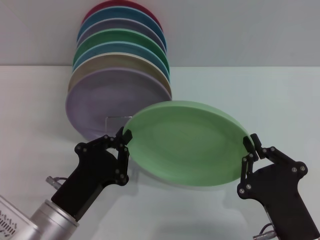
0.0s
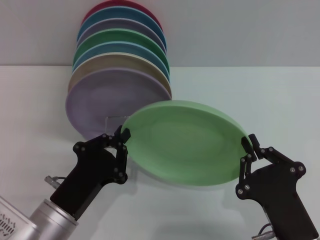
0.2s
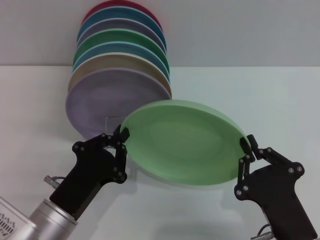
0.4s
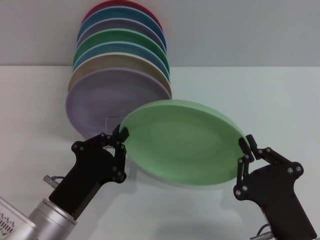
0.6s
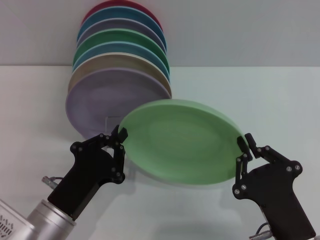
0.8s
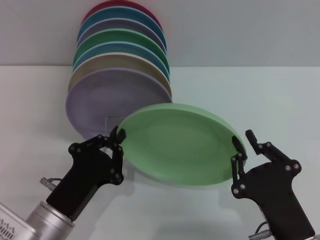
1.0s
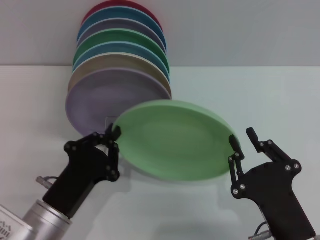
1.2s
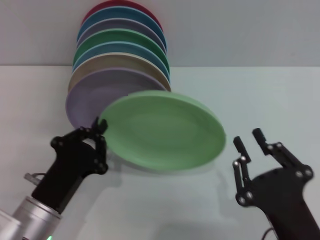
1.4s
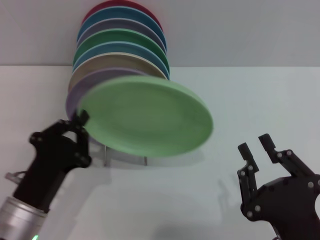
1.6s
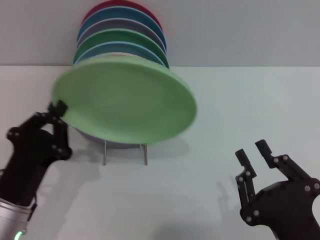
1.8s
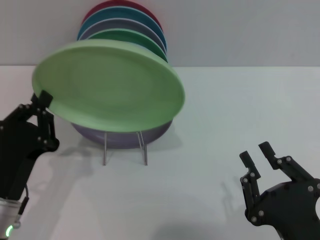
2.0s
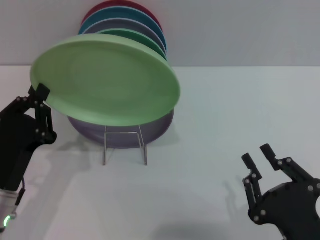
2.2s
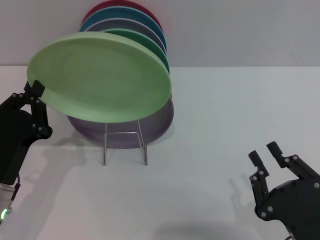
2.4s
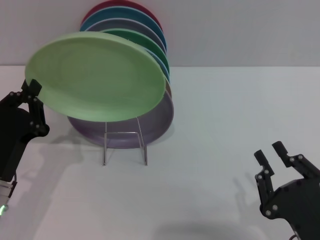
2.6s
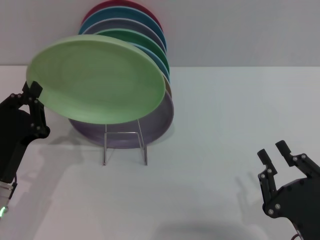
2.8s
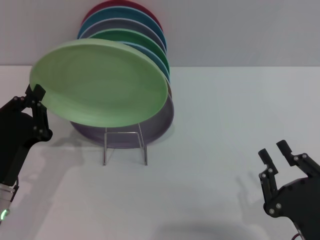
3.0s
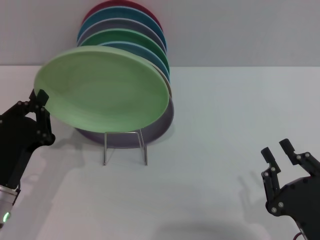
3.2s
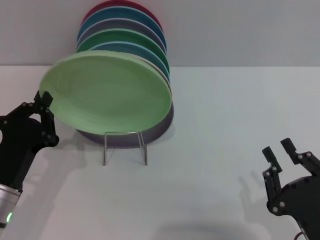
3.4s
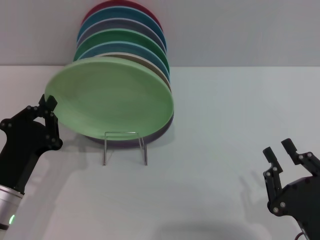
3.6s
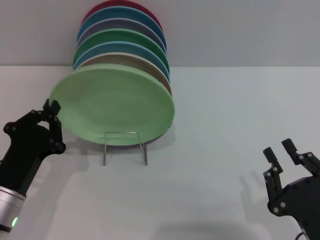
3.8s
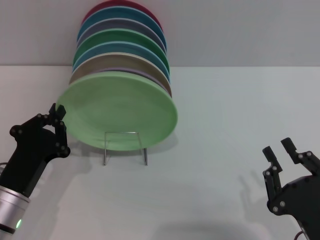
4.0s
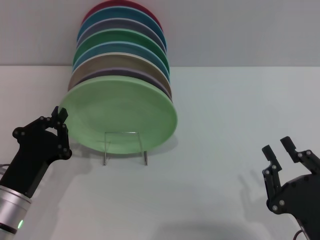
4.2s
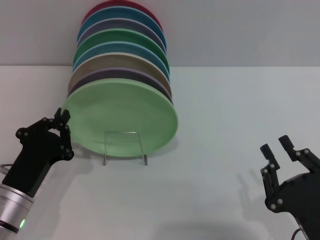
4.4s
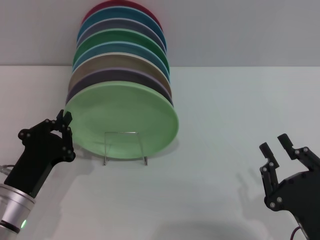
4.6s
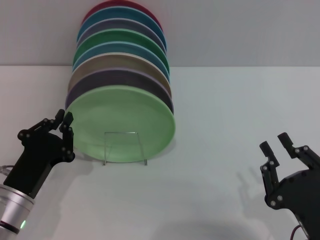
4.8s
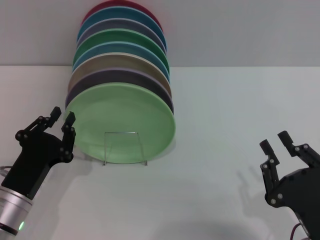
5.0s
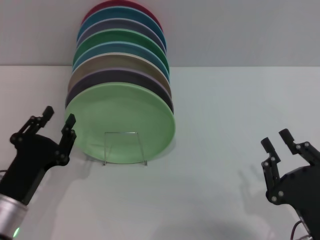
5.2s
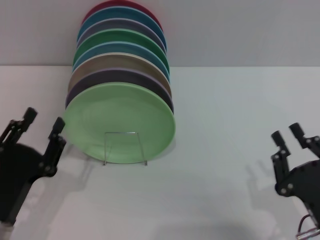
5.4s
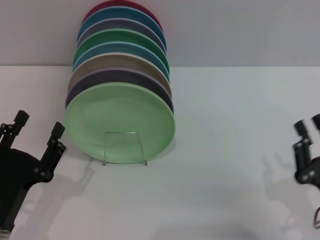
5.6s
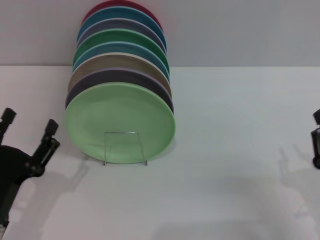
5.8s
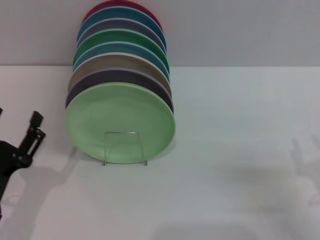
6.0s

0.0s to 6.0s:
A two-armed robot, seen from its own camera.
Task of the whole recording: Grip the plate with one hand, pass it to the other, then set it on the shelf.
Step, 1.8s to 5.4s: Place the plate on the shelf with the left gripper.
0.0s to 1.6s: The right gripper opens.
1.6s to 3.0s: The right gripper shifts by approximately 5 cm.
3.0s to 4.4s: The grippers stay close to where they were, moving slightly.
4.4s to 6.0s: The left gripper opens. Meanwhile the right gripper travels to the right and forward by some 10 cm.

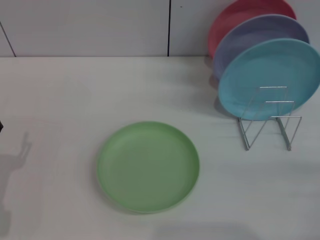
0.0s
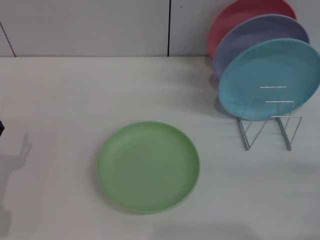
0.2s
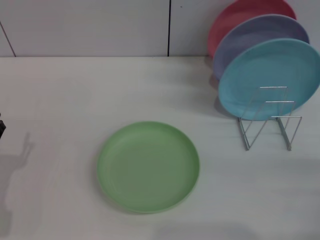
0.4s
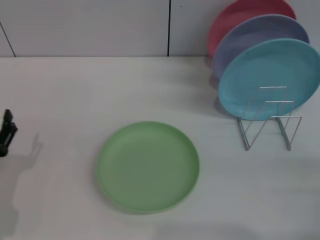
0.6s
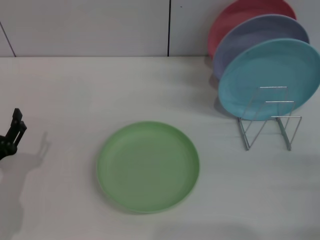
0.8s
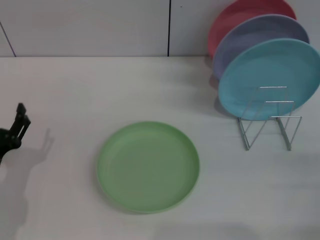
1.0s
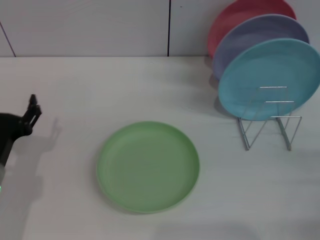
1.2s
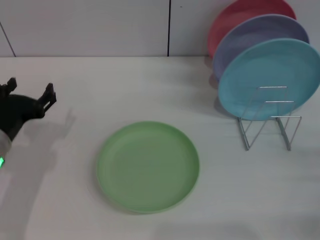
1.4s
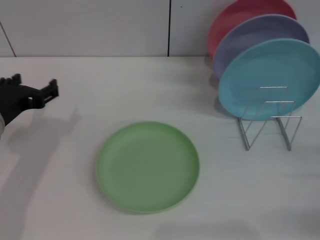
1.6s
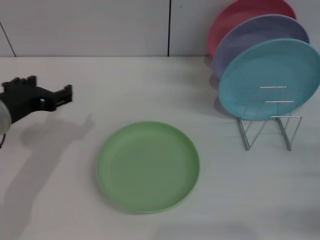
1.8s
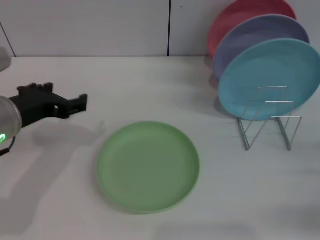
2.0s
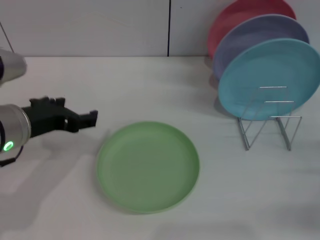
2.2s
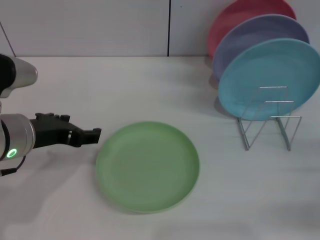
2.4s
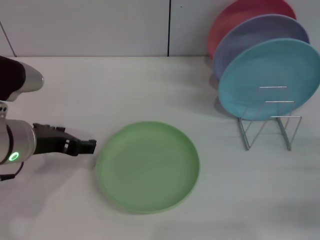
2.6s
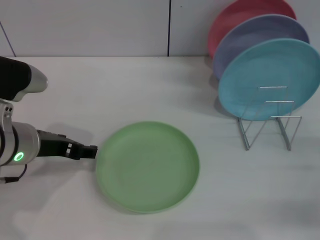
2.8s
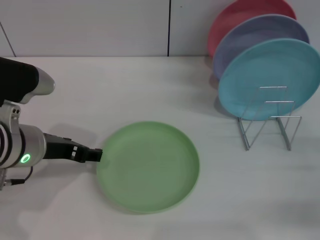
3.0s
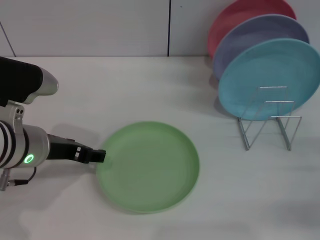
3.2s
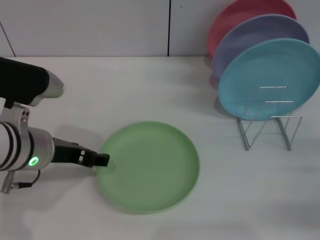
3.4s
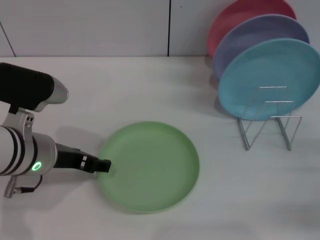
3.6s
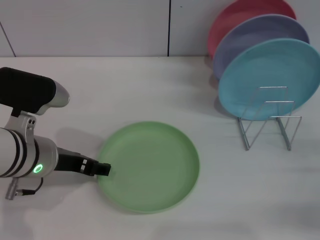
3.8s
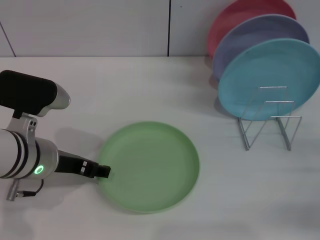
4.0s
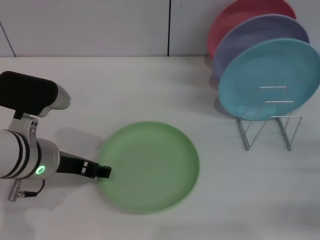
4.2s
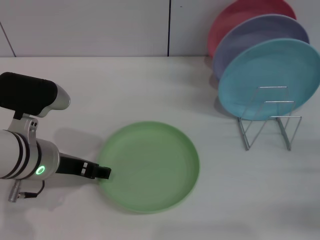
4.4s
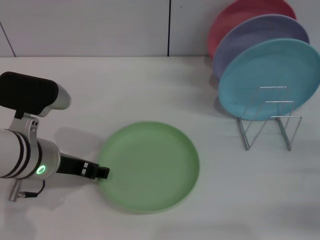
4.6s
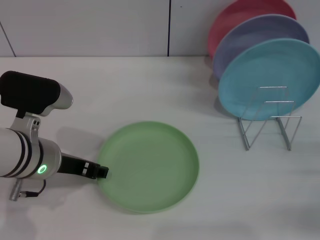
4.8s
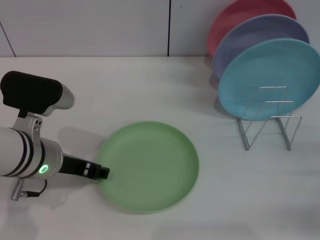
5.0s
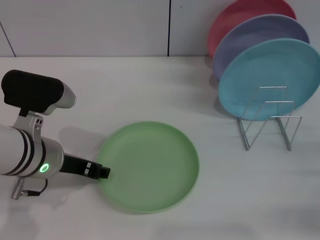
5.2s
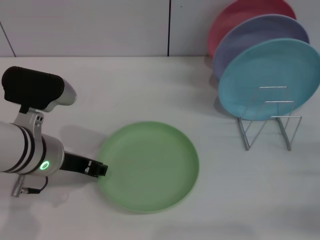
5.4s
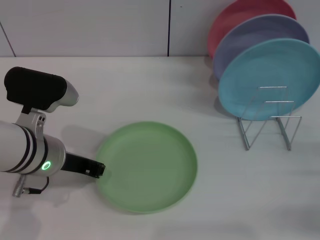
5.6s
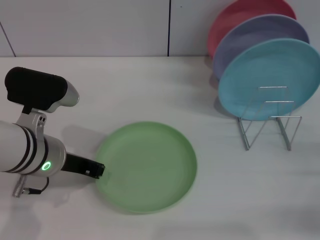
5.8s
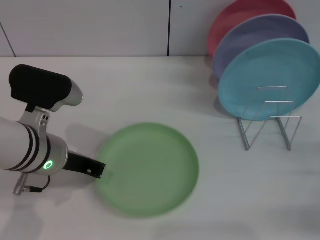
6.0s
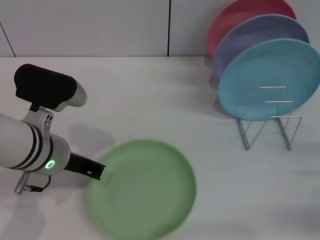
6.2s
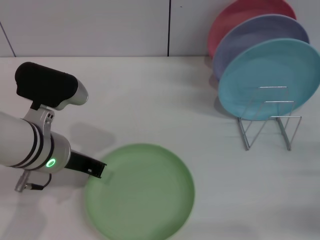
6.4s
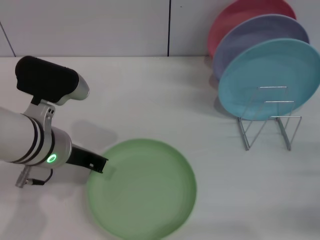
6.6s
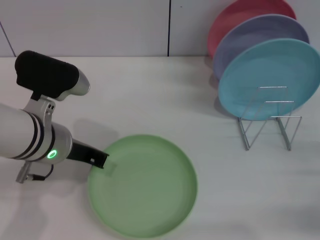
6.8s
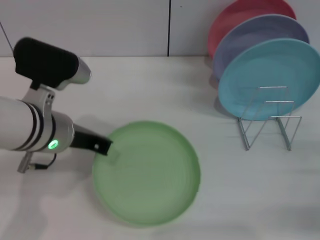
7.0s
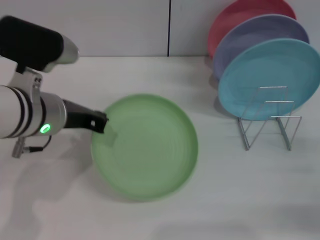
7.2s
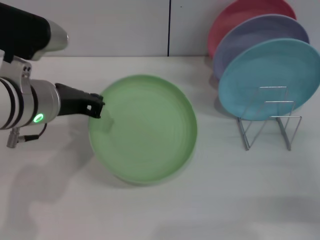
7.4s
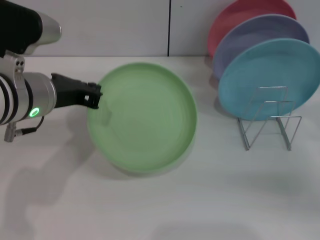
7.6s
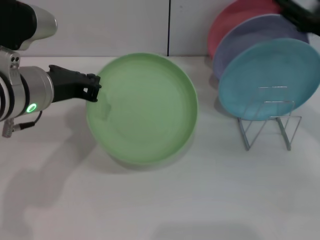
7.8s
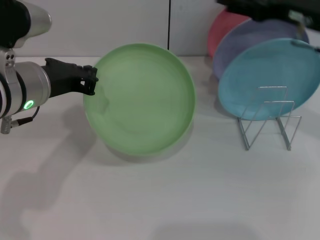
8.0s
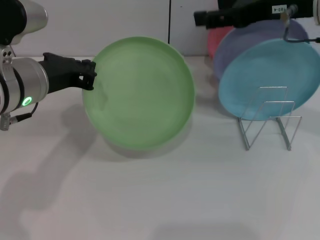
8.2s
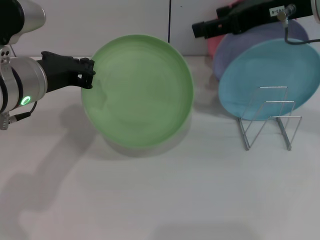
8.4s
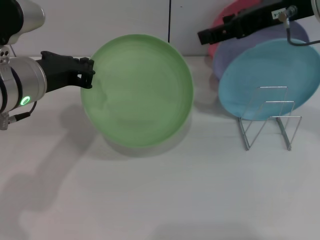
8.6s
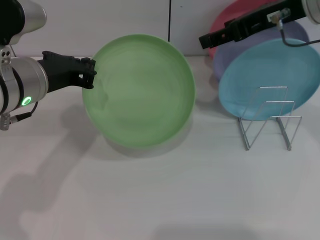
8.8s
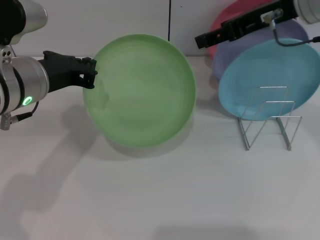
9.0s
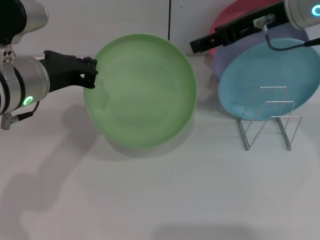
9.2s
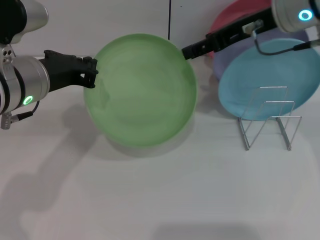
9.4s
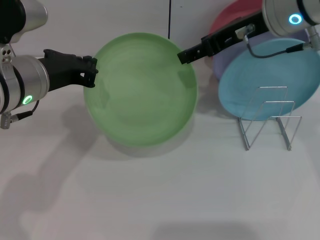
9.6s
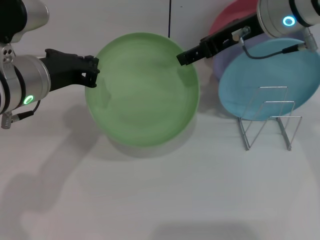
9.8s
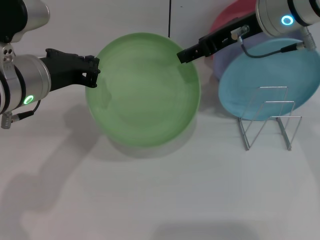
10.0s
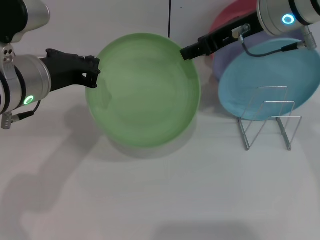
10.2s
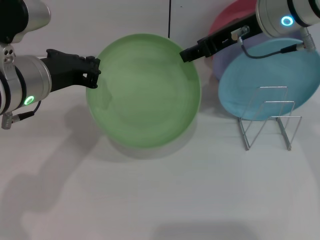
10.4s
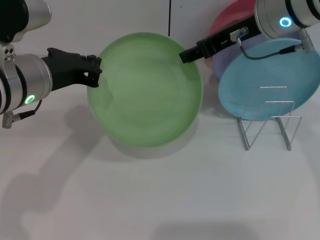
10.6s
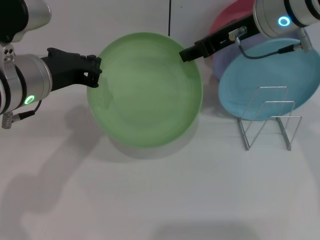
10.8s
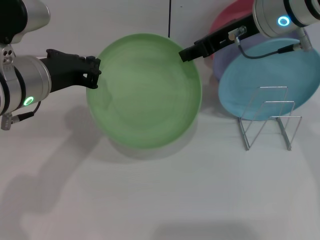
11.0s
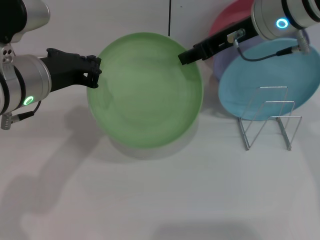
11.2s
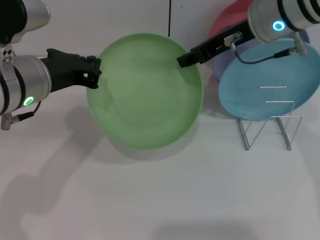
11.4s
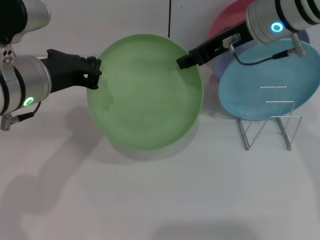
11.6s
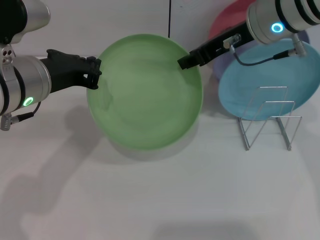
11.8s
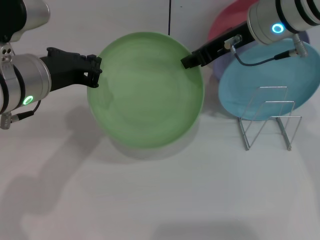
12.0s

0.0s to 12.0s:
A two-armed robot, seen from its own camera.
Task of the whole recording: Grip the plate with one hand, pass it to the other, then set it on the shelf.
Step, 0.0s to 8.2s: Pick up the plate with the left gripper.
0.0s to 1.6s: The left gripper travels upward and forward by approximately 15 cm.
1.6s to 3.0s: The left gripper heads to the right, covering about 5 cm.
3.0s to 4.4s: The grippers make only small movements.
4.4s to 6.0s: The left gripper closes up.
6.0s to 7.6s: The left gripper shifts roughly 5 cm upward. The right gripper travels forward and upward by about 10 cm.
7.6s to 9.0s: The right gripper goes about 25 cm upward, to the left and forward.
9.0s to 10.4s: The grippers move only a little.
10.4s to 12.0s: Neither gripper changes place.

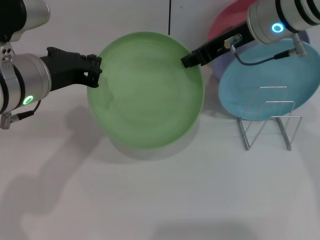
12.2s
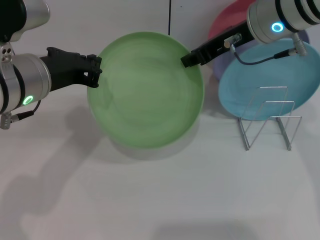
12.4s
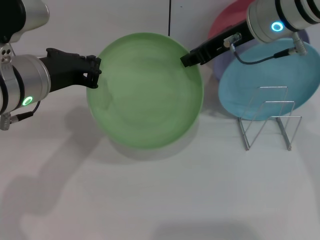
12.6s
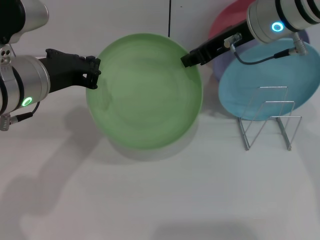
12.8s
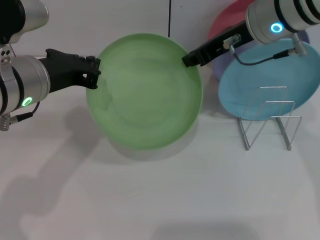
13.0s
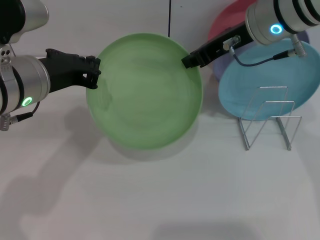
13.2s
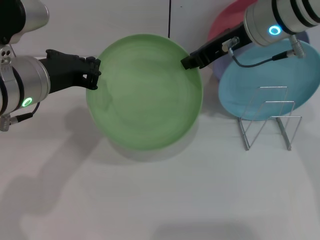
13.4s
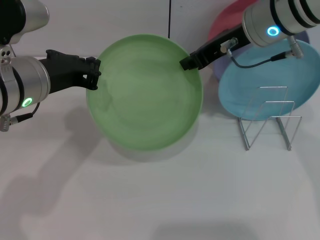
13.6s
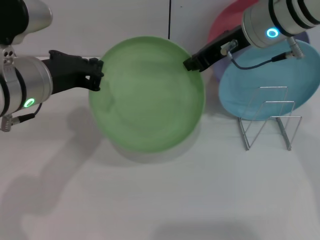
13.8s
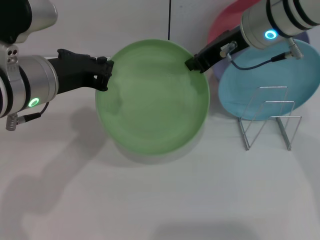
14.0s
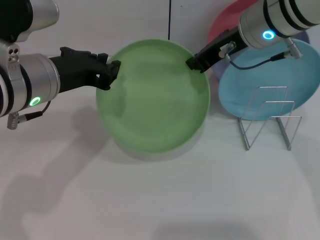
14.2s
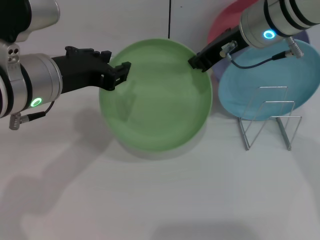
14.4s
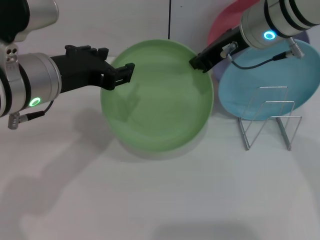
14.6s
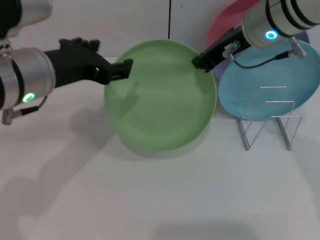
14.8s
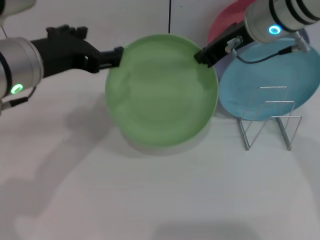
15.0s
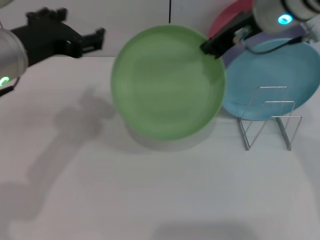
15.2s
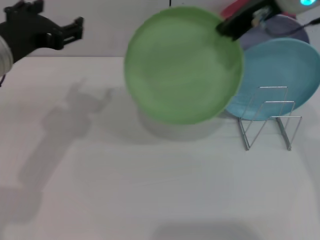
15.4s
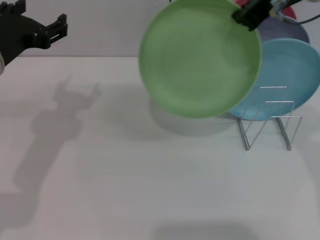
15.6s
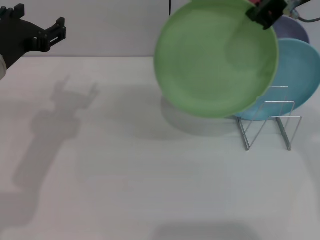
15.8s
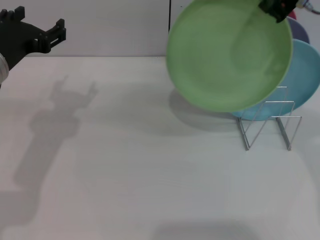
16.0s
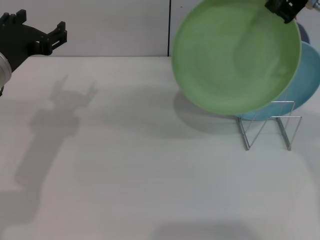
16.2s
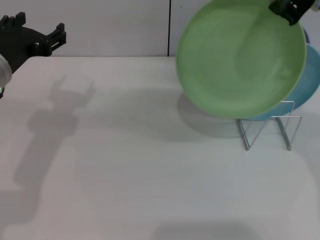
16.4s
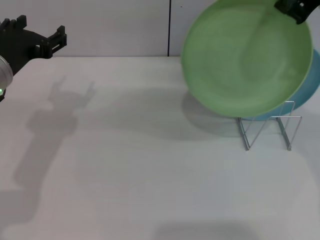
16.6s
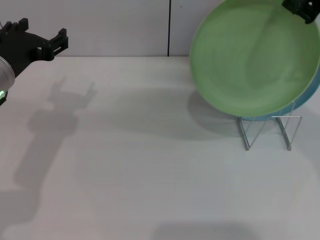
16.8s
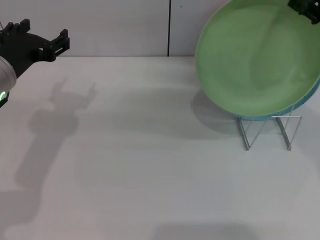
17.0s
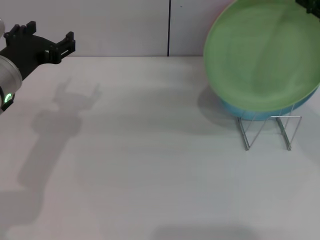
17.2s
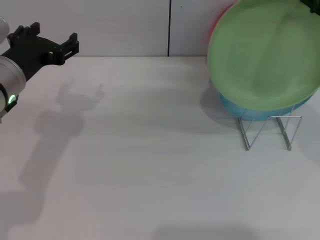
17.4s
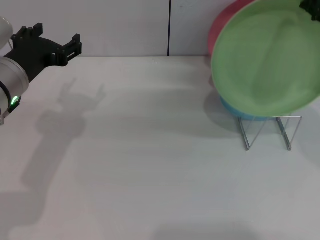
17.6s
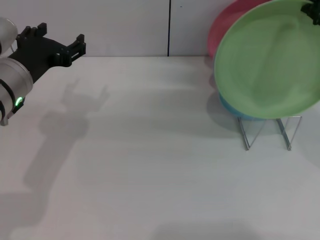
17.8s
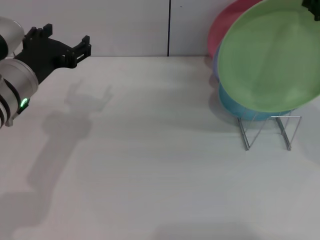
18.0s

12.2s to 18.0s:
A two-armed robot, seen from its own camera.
Task of the whole recording: Grip the plate with one hand, pass it to the other, then set it on the shelf.
Step, 12.2s to 15.2s: Pass the plate from the left gripper to the right gripper.
12.2s to 13.6s: Both grippers stay about where they are.
13.6s to 15.0s: The left gripper opens its fingers.
15.0s to 16.6s: The right gripper is displaced upward and to the right by about 10 cm. The left gripper shifts about 10 cm downward and to the left.
16.6s to 18.0s: The grippers move only a little.
